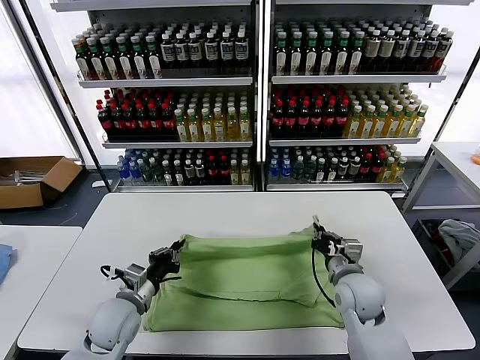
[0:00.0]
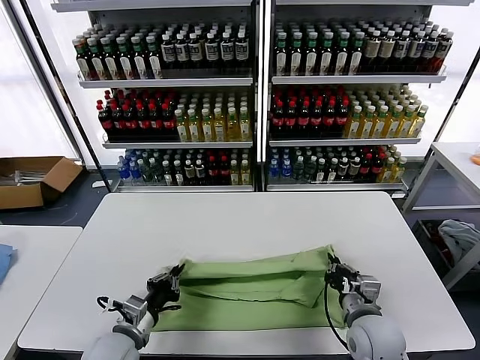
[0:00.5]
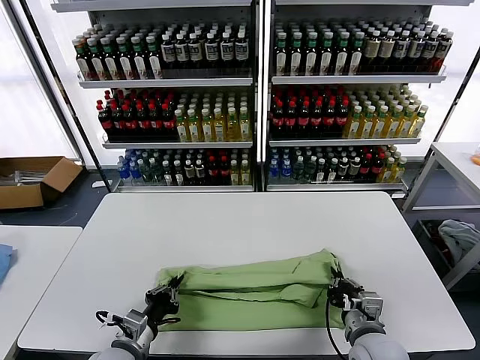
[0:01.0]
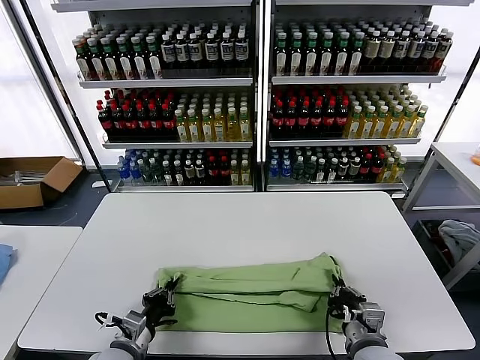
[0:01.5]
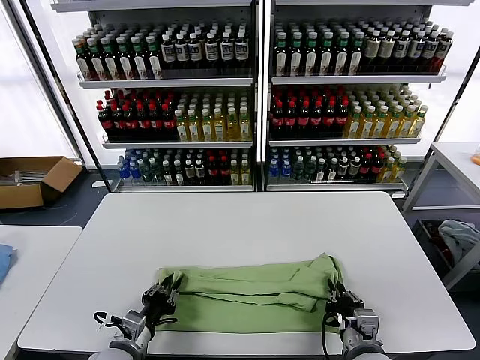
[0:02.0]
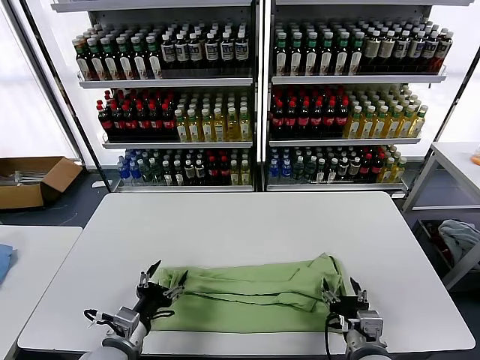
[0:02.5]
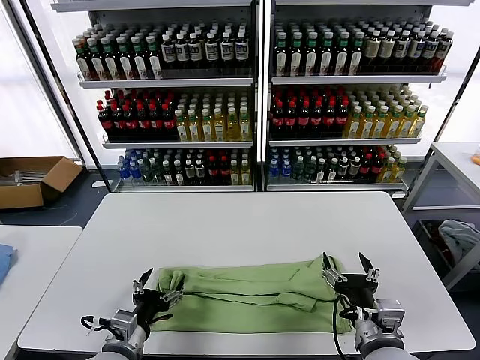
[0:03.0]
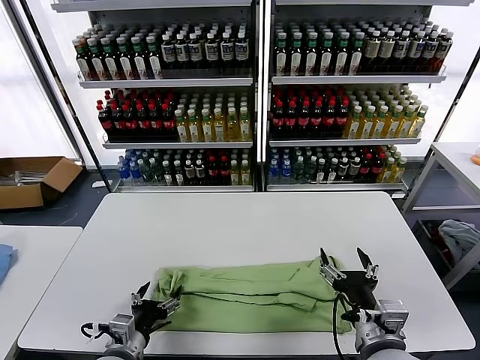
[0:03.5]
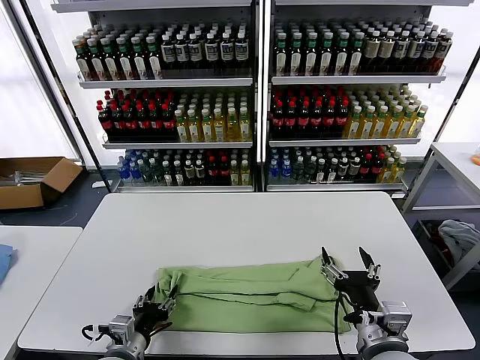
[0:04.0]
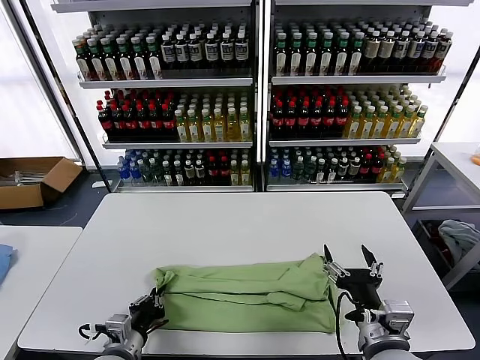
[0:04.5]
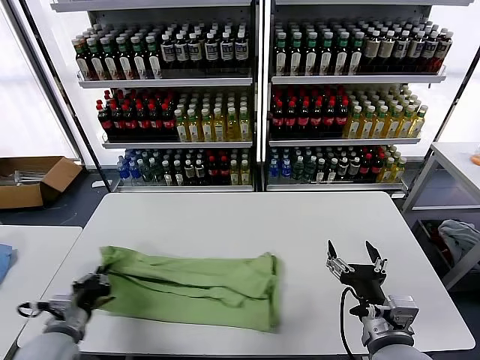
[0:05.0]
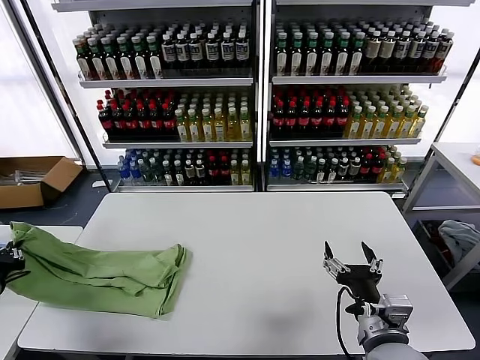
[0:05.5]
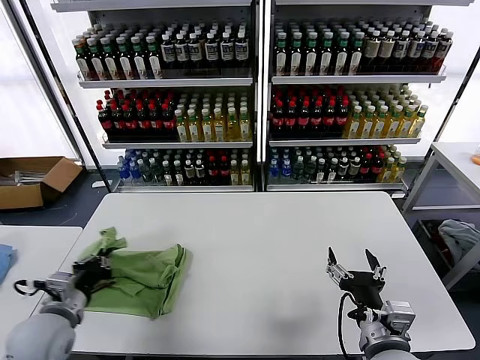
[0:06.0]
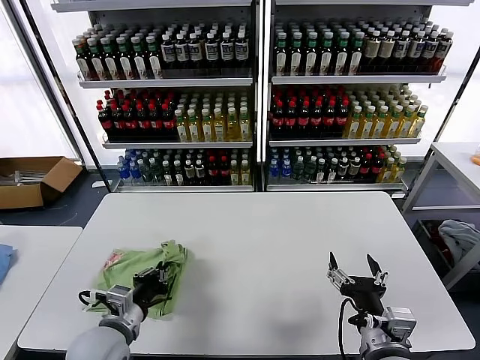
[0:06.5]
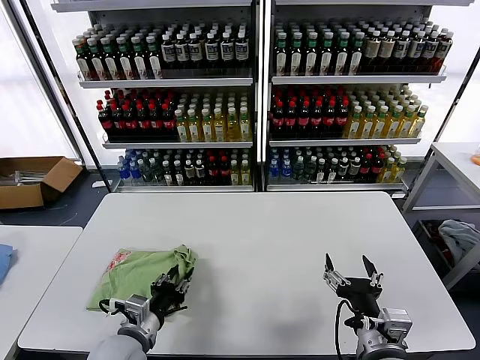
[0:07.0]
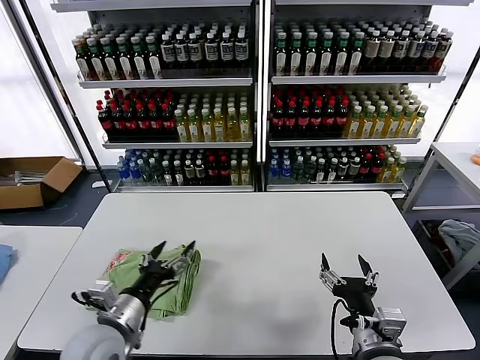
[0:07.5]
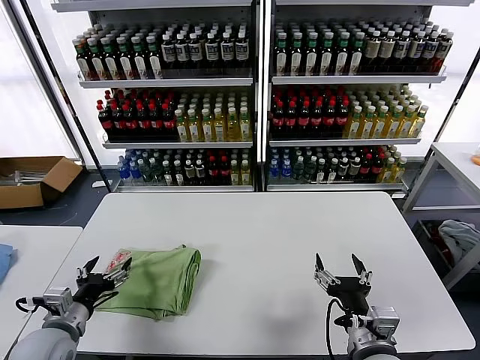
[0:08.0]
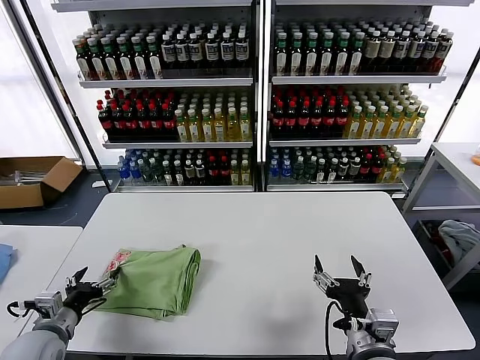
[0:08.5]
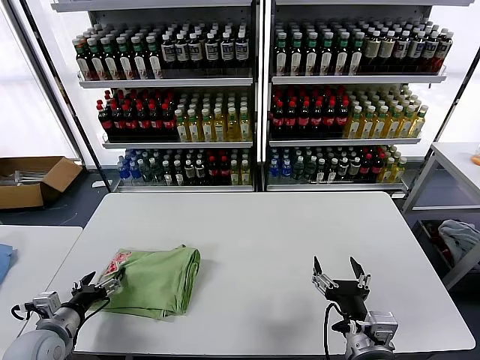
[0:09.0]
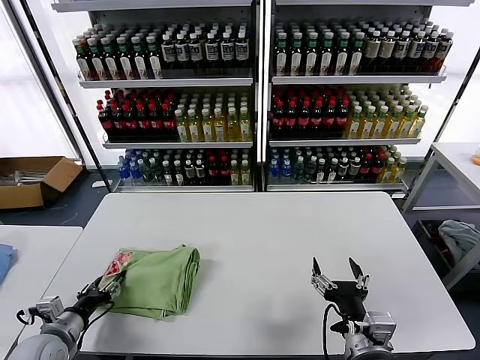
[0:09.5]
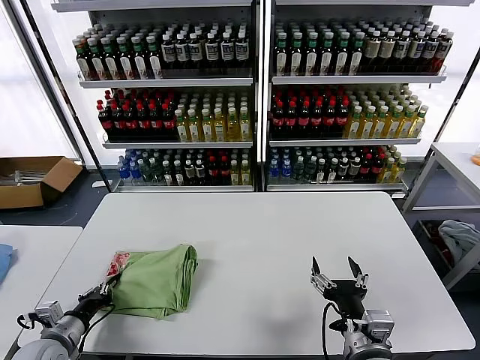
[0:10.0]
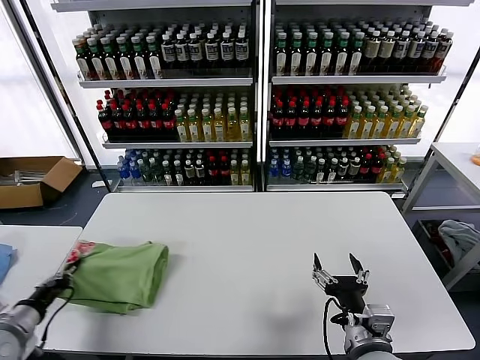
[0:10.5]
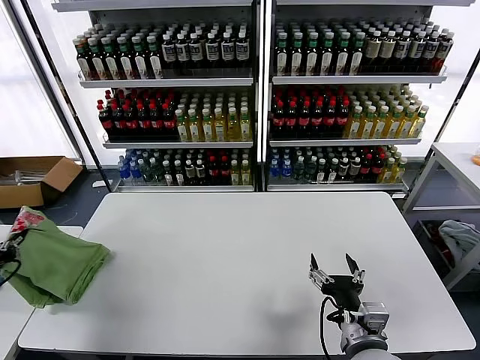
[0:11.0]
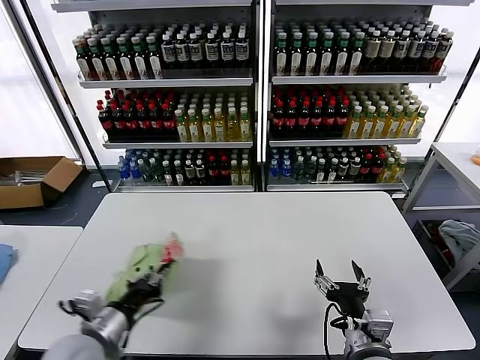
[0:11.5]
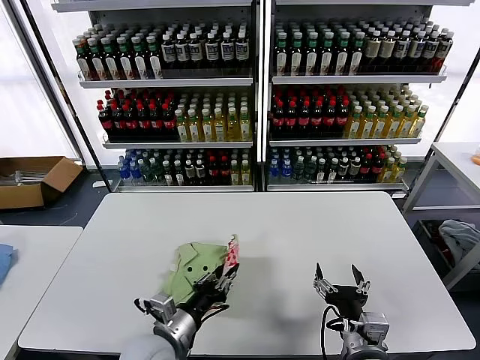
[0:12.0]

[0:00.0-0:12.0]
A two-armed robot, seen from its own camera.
Task of the whole recording: fold and organize the clothes.
Step, 0:00.0 to 0:02.5: use both grippers to drag the upper edge of the fabric backward and fold it over the lower edge.
Step, 0:03.0 to 0:04.5: use the left gripper to clamp the left edge of the fabric.
Step, 0:05.0 to 0:07.0: use the left gripper to drag the left edge of the fabric to the left and folds it over the right edge.
0:00.0 to 0:02.0: Both grippers move backward, approximately 10 cm.
0:02.0 to 0:04.0: The left gripper opens its fingers, while the right gripper travels upward by roughly 10 cm, and opens its fingers.
0:04.0 to 0:06.0: The left gripper shifts approximately 15 cm to the left, upward and forward, and closes its fingers.
0:06.0 to 0:08.0: The left gripper moves some 15 cm to the right and comes back, and opens its fingers.
0:08.0 to 0:10.0: The left gripper moves downward and to the left, about 10 cm, and closes.
0:10.0 to 0:12.0: The left gripper goes approximately 25 cm to the right.

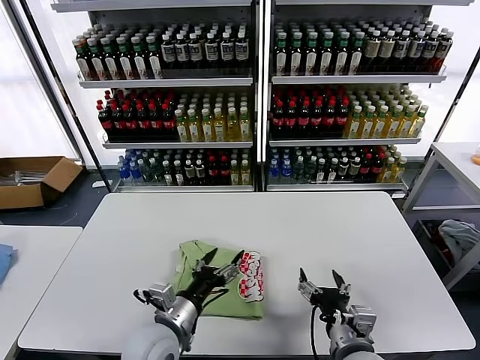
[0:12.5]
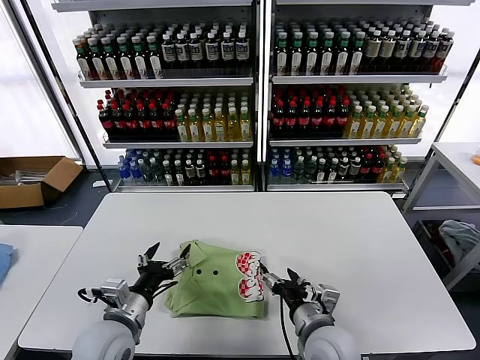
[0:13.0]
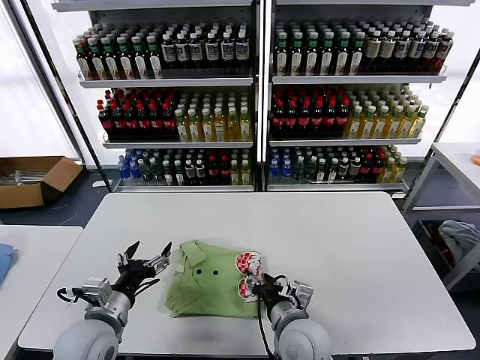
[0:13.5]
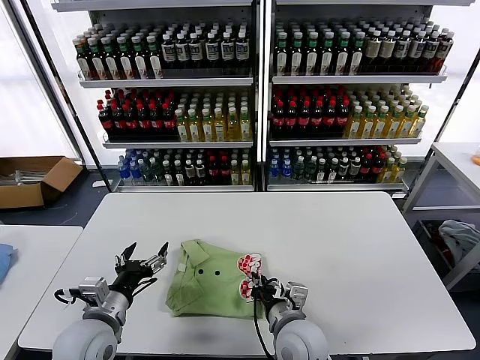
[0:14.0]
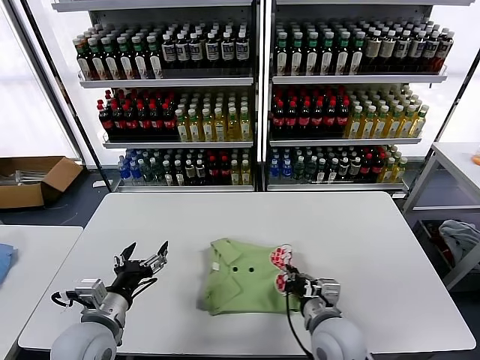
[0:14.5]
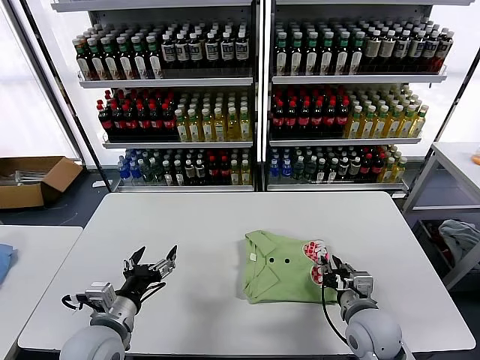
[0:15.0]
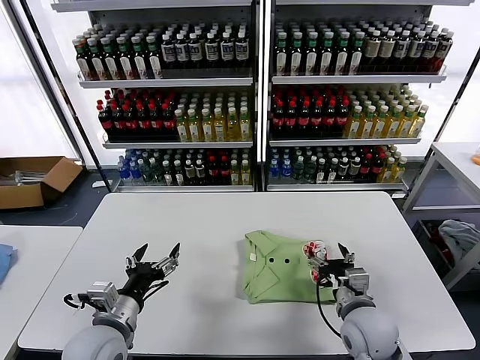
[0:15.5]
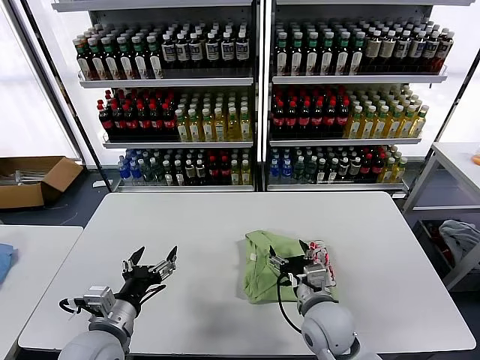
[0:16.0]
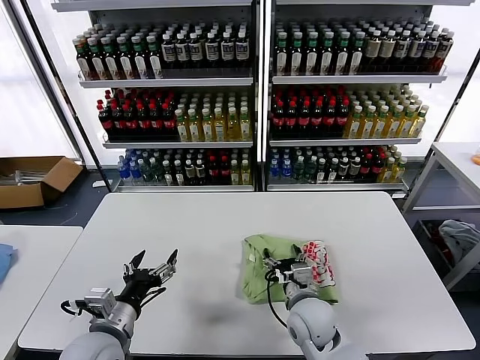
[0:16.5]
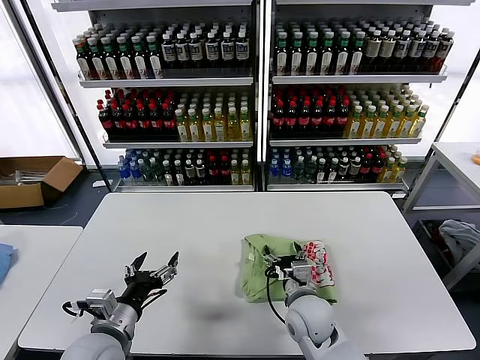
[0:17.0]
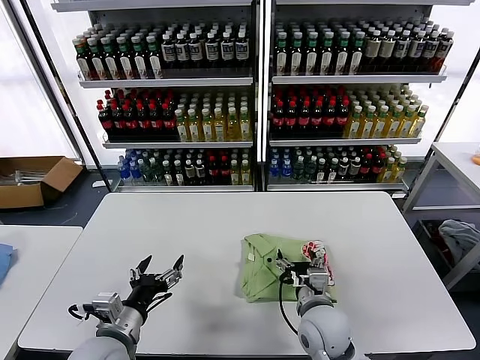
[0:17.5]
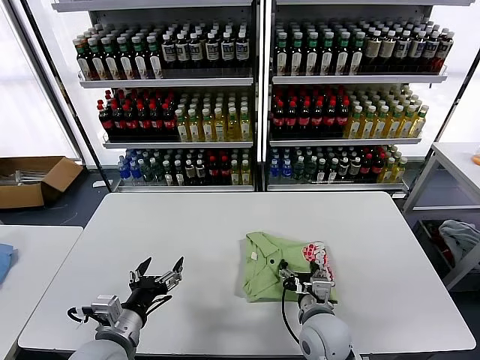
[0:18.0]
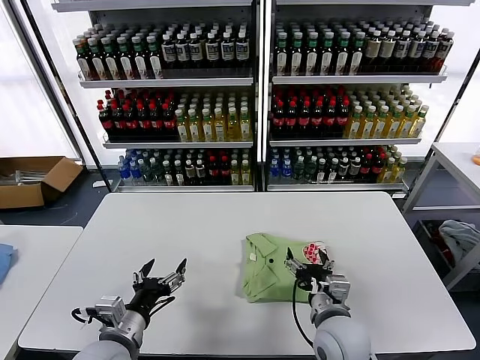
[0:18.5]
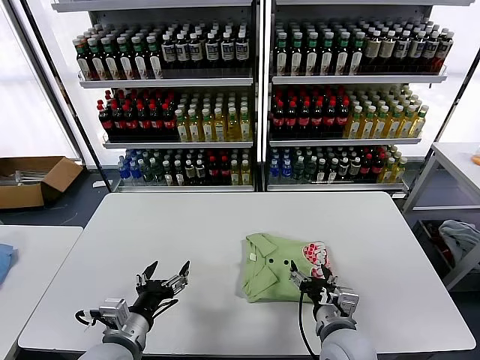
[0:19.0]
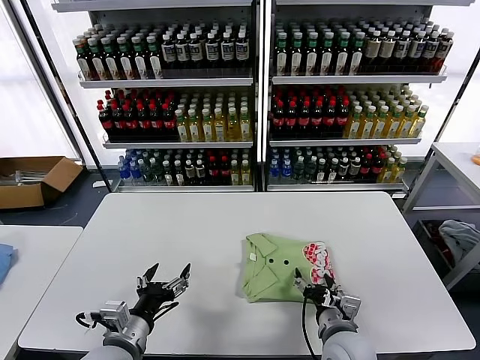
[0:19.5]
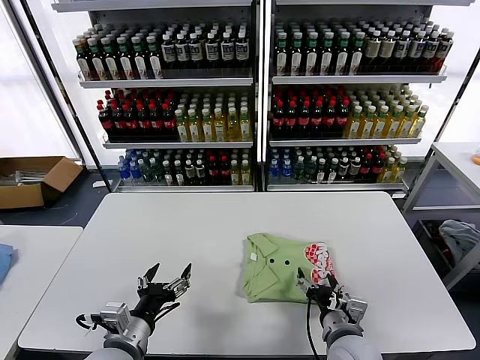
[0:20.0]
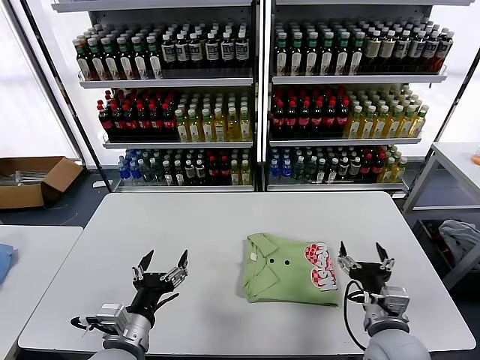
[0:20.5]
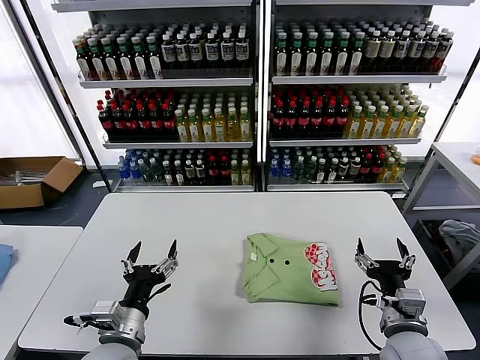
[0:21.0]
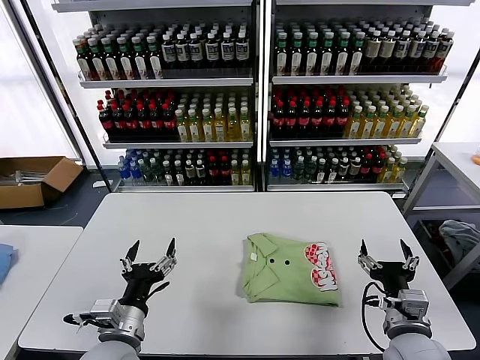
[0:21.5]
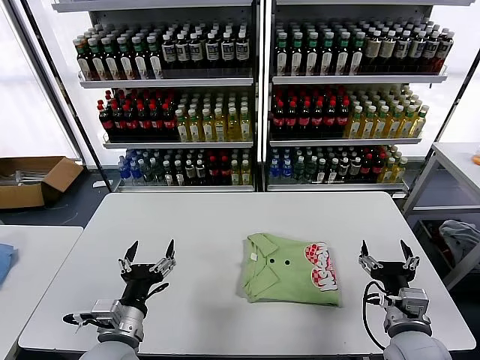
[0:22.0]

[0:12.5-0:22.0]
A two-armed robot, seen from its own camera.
Task of the whole recording: fold and organize the clothes.
Step, 0:12.5 to 0:20.0: Drag the clothes to the center of the table.
0:12.5 to 0:14.5: The right gripper moves forward, roughly 5 cm, and closes its fingers. The left gripper travels to the left by some 10 cm.
0:14.5 to 0:16.5: The right gripper is displaced forward by about 5 cm, goes to the right and returns, roughly 10 cm each way, and opens its fingers.
0:16.5 to 0:18.0: The grippers move only a little.
0:18.0 to 0:20.0: The right gripper moves some 5 cm.
0:20.0 to 0:22.0: The right gripper travels to the right by about 10 cm.
